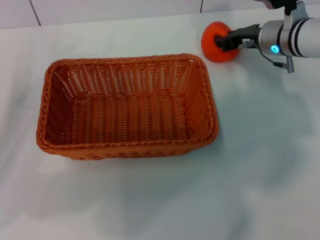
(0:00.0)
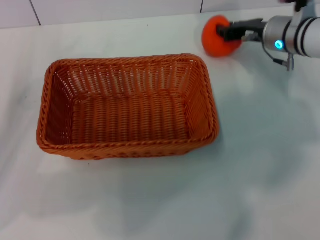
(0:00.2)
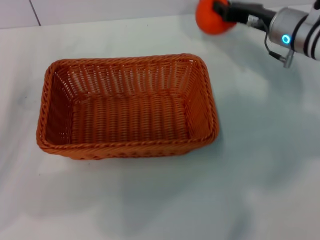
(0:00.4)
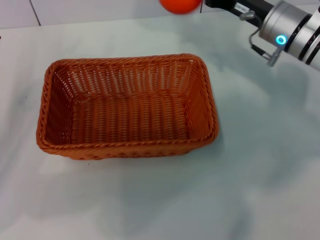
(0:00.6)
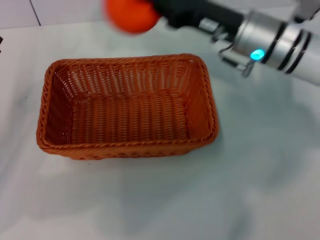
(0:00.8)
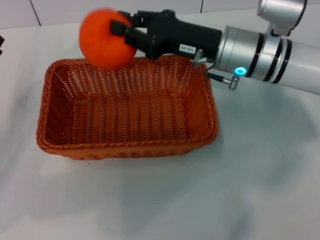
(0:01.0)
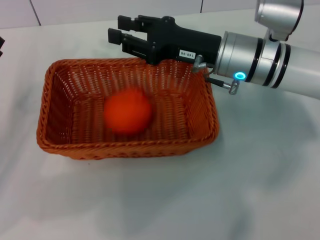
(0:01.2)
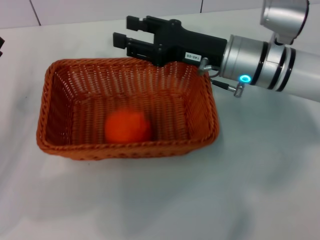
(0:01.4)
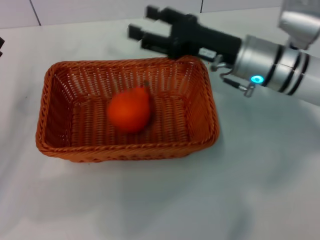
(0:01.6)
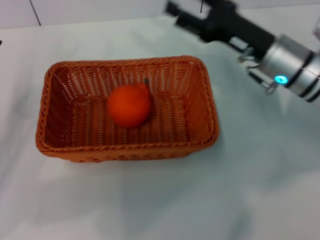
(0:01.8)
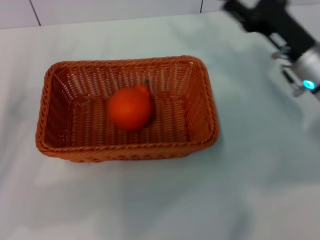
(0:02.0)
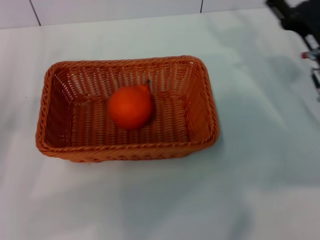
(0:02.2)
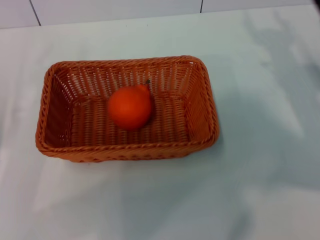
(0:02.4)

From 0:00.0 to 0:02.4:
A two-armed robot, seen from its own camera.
Task of the whole recording: the left gripper pick up the yellow basket and place it horizontally in the middle of the table, the right gripper pick up the orange and place it into the yellow basket.
Step, from 0:00.4 to 0:01.4: Place the orange into the light basket with the right gripper.
From 0:00.0 to 0:01.2: The right gripper moves to the left and backward, approximately 10 cm.
From 0:01.2 to 0:02.4: The right gripper moves to the right, about 15 cm, and opens its fingers.
